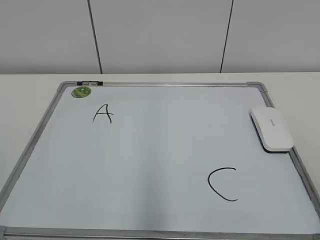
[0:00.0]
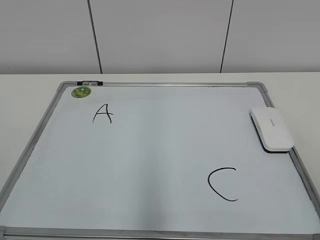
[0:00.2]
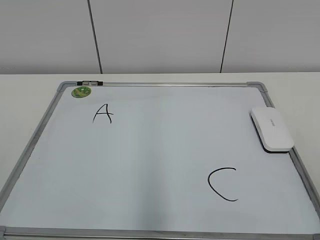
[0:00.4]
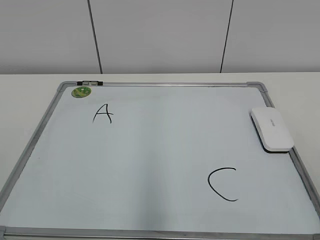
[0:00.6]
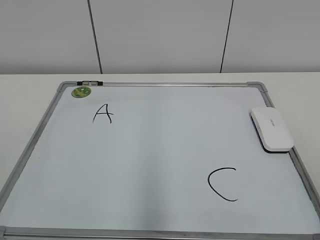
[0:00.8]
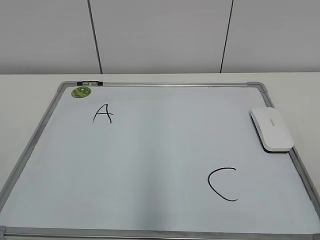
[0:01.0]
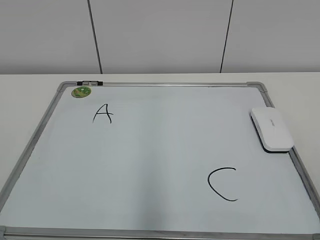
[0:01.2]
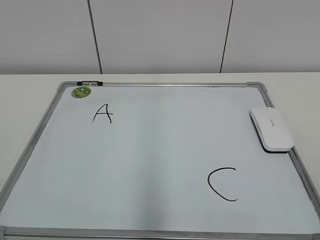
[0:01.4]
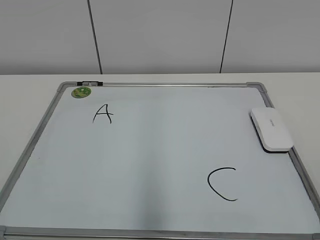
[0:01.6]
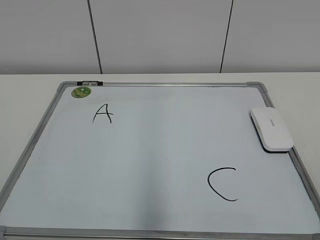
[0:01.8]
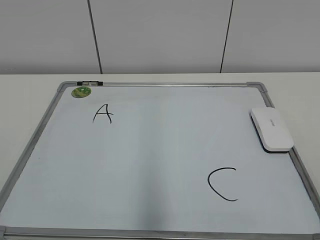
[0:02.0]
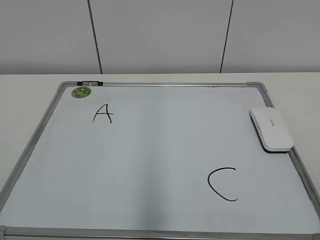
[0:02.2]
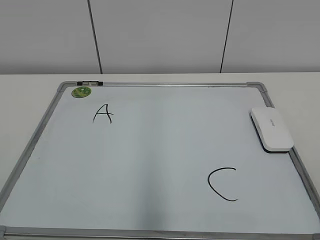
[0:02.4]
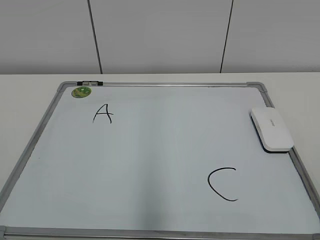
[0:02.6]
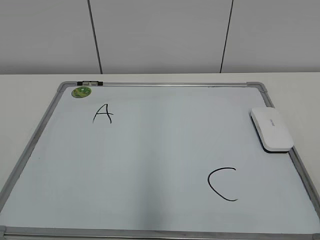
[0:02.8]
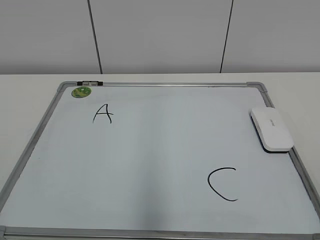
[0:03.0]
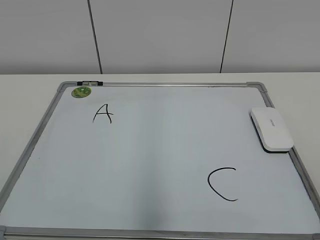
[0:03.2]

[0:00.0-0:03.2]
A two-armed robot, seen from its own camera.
Task of the whole recording: pick up the eraser on the blackboard and erase the letter "B".
0:01.6 to 0:03.2: Both grippers stay about where they are.

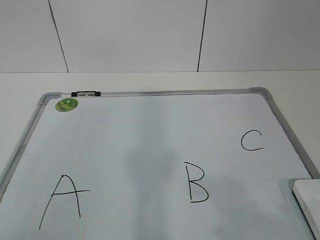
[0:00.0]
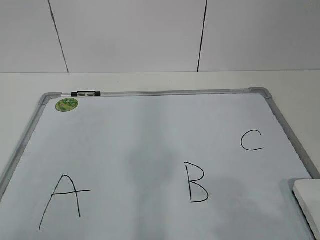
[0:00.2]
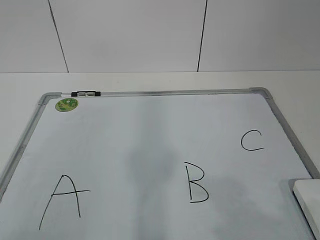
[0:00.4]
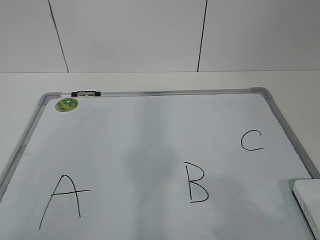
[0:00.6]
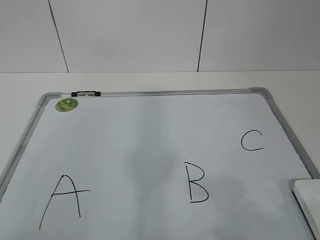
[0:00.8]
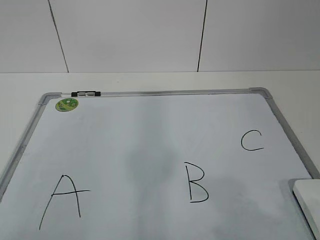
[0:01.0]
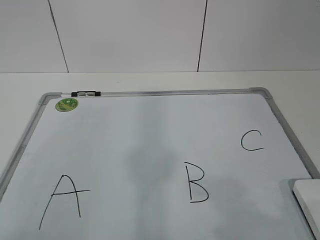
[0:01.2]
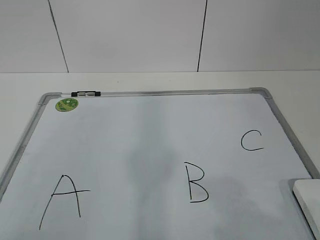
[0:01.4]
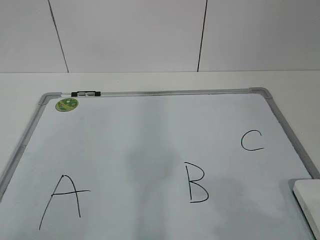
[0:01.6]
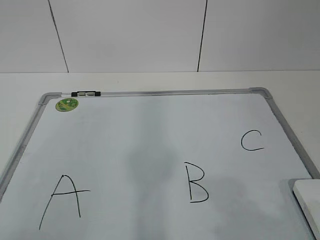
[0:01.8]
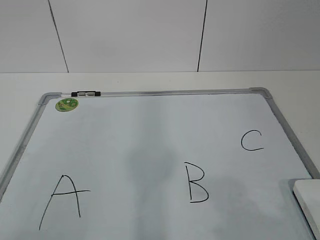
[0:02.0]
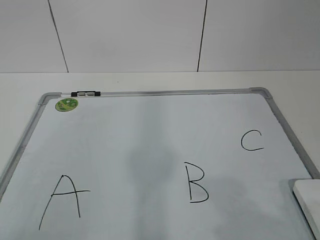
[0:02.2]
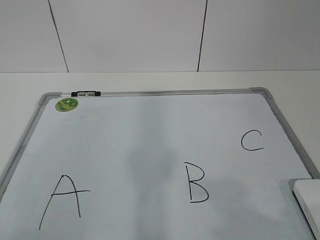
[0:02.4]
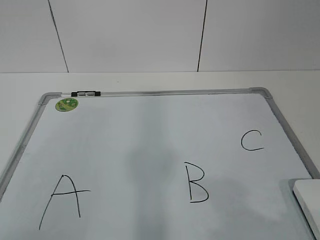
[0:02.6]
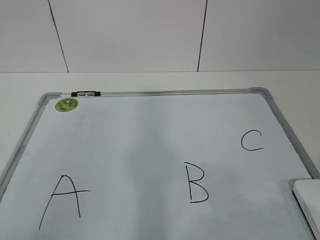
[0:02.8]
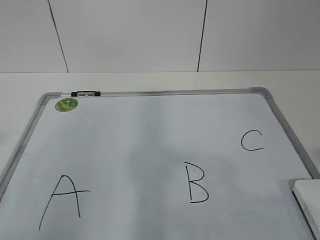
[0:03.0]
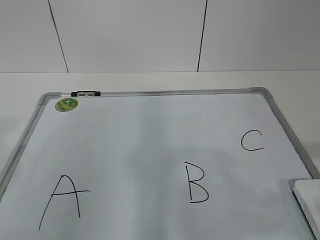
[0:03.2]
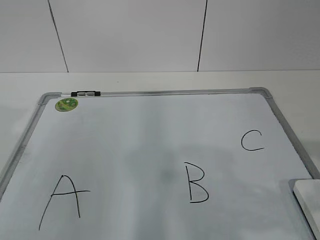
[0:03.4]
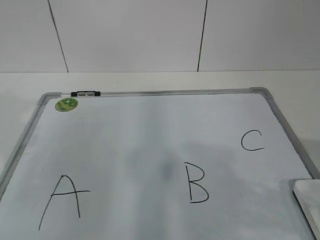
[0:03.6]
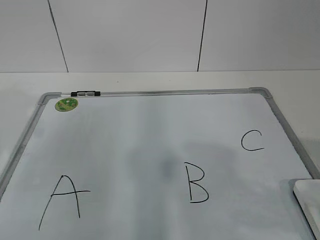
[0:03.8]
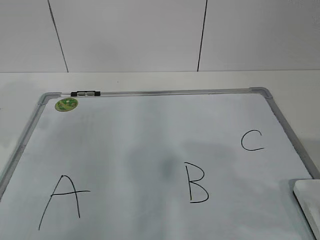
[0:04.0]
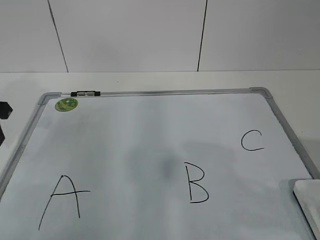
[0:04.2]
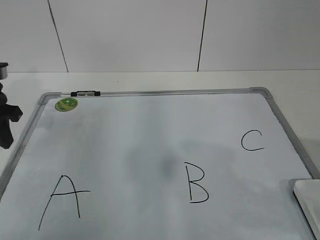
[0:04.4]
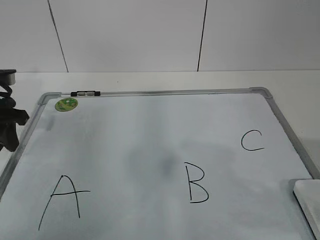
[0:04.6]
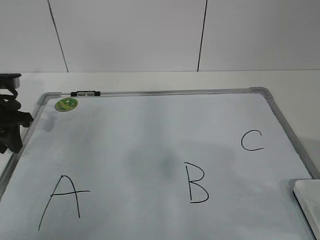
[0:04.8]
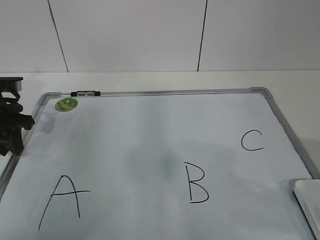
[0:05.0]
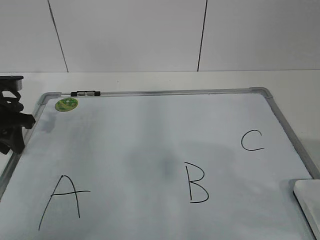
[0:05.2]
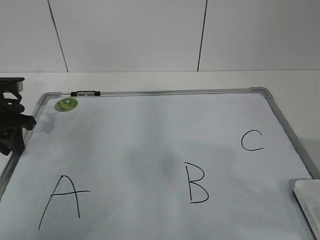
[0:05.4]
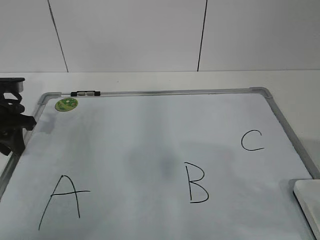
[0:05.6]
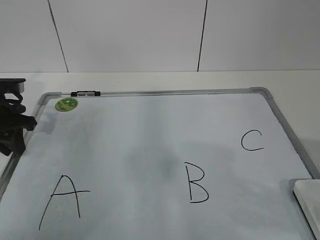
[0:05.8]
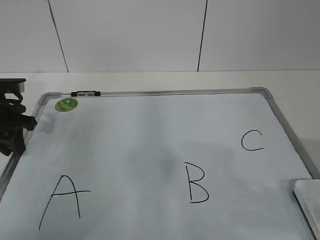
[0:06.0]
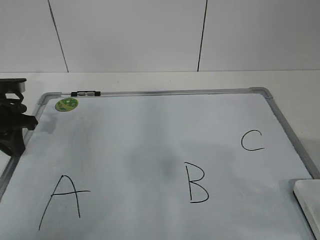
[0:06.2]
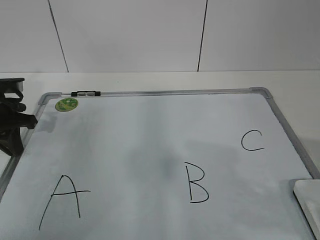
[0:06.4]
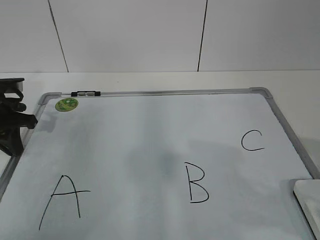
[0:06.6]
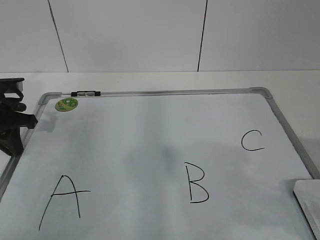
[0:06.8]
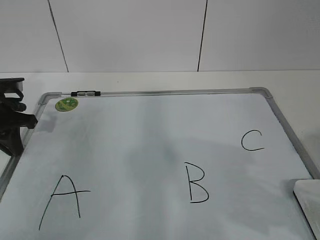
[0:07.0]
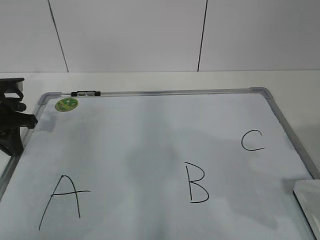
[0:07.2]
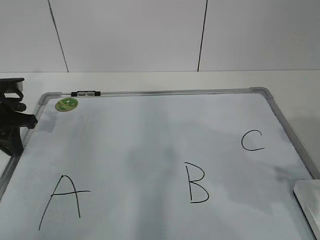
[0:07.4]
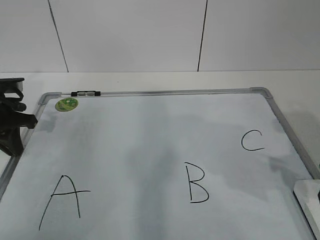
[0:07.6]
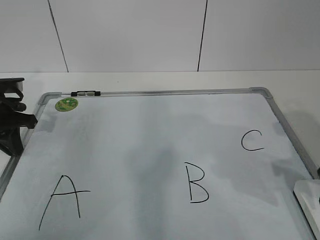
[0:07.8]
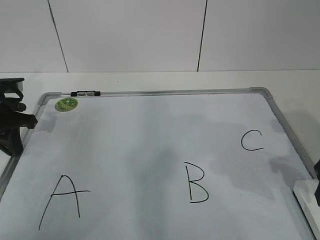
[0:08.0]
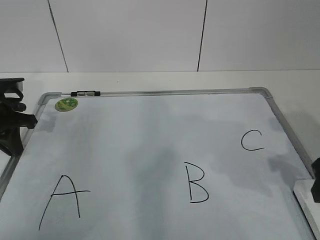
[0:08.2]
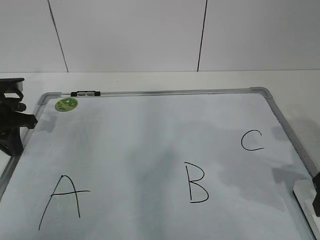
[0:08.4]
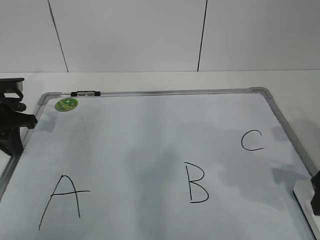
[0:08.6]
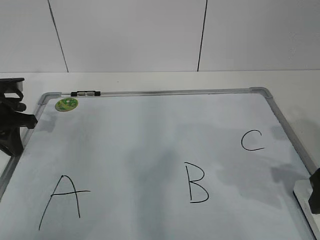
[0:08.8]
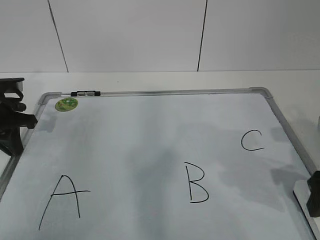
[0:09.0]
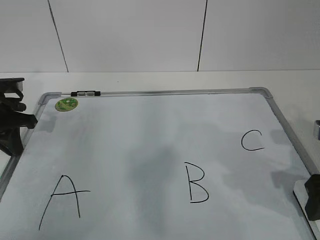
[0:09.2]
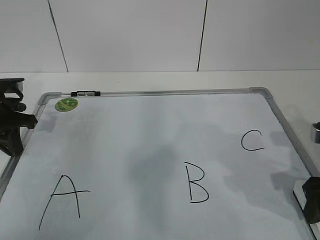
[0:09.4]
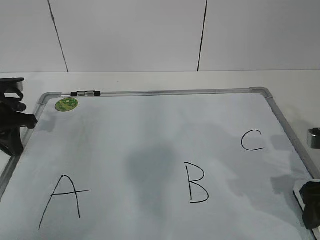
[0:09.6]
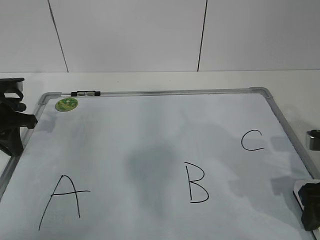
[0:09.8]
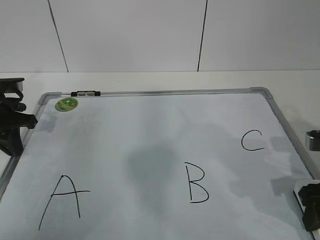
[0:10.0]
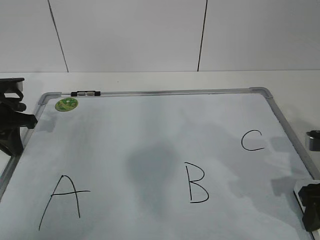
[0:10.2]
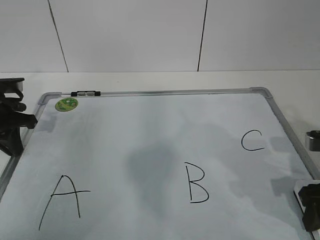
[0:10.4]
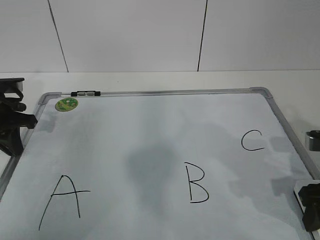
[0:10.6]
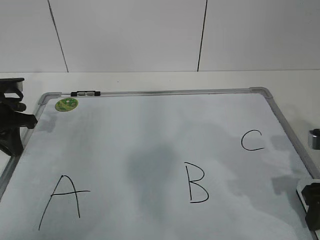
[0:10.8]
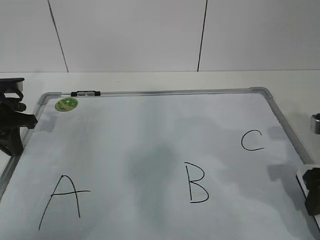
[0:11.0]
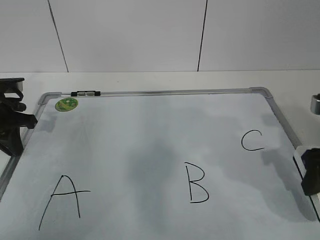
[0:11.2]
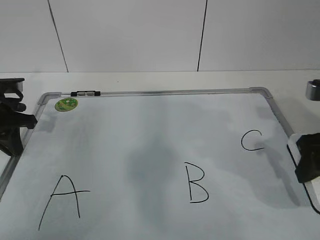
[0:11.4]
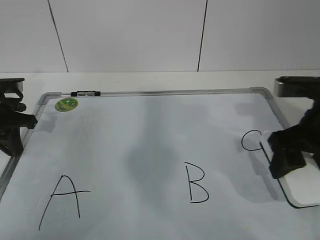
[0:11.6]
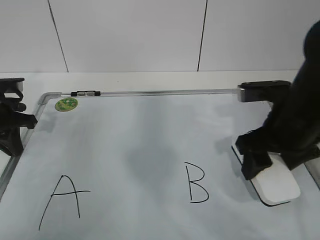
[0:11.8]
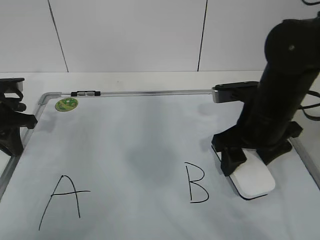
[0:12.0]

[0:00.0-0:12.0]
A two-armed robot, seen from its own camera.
Task of the whole recording: pick up the eraser on the blackboard and erase the letter "B".
Step, 0:00.0 to 0:05.2: Hold the drawing board steady with your left hand.
0:03.0 to 0:04.4: The left gripper shifts about 25 cm forward.
0:04.4 to 0:06.0: The left gripper moves about 5 cm.
0:06.0 to 0:07.6: The right gripper shifts approximately 10 cm forward.
0:07.6 to 0:09.0: The grippers make only small movements.
0:09.0 to 0:10.4: There are only small adjustments of the grippers.
0:10.4 to 0:12.0: The right gripper is displaced to the left and forward by approximately 15 cm.

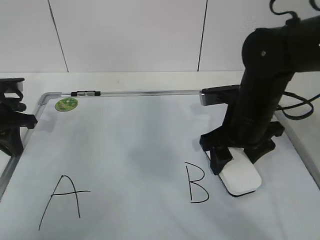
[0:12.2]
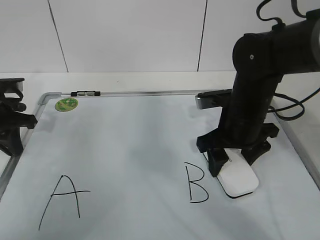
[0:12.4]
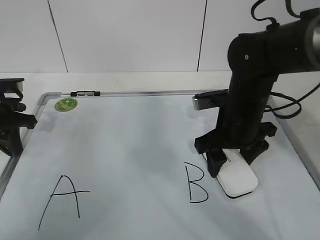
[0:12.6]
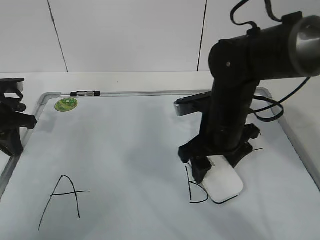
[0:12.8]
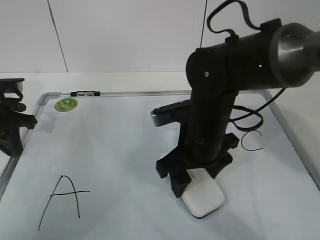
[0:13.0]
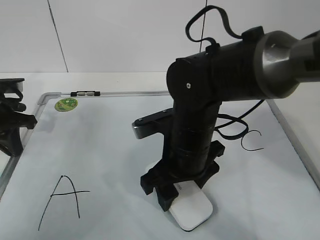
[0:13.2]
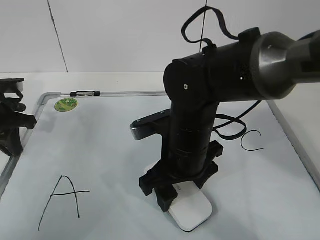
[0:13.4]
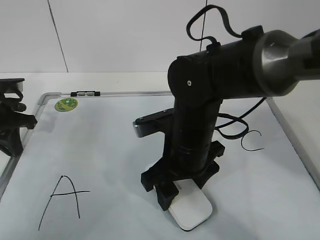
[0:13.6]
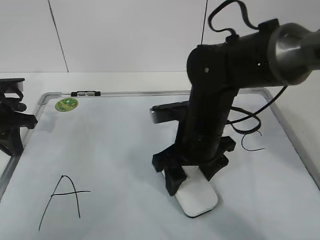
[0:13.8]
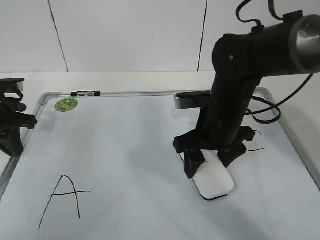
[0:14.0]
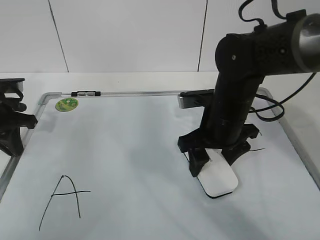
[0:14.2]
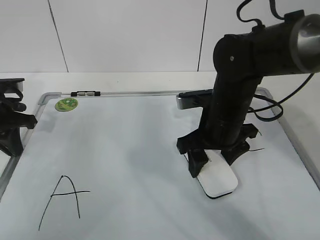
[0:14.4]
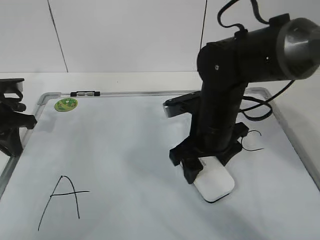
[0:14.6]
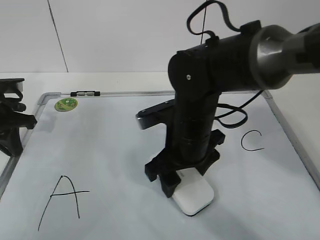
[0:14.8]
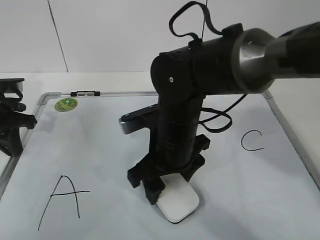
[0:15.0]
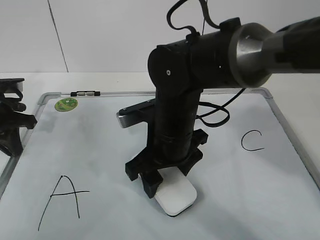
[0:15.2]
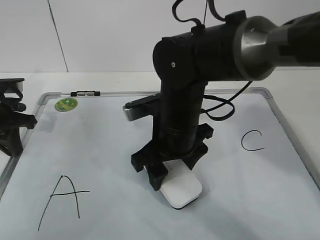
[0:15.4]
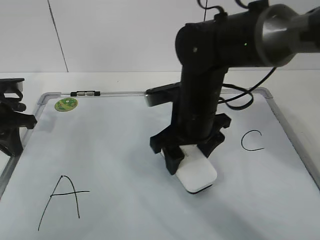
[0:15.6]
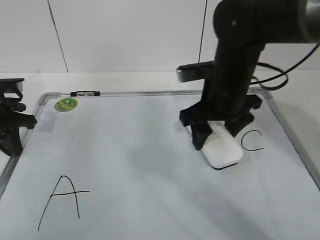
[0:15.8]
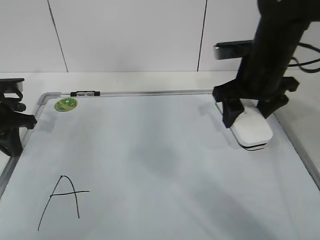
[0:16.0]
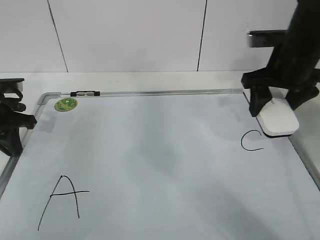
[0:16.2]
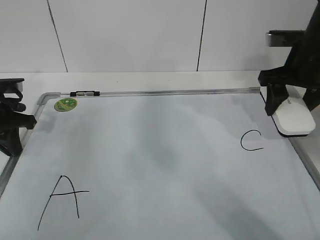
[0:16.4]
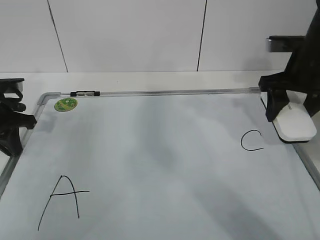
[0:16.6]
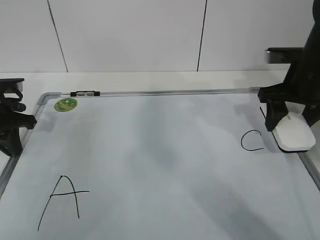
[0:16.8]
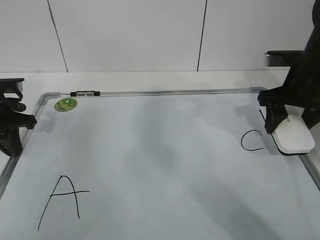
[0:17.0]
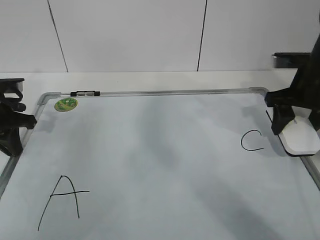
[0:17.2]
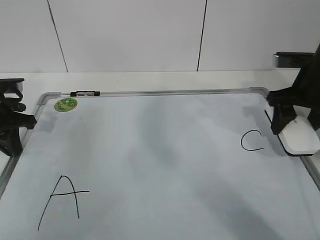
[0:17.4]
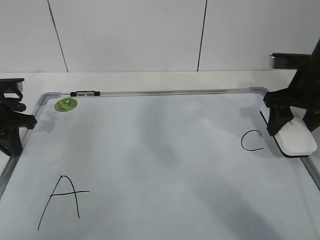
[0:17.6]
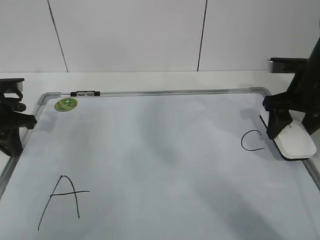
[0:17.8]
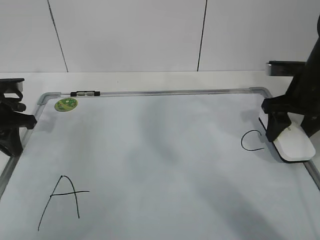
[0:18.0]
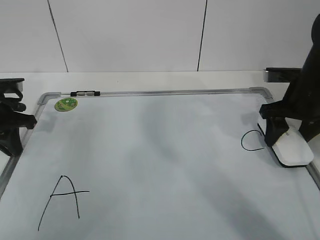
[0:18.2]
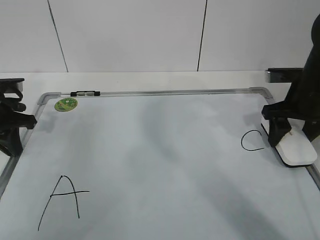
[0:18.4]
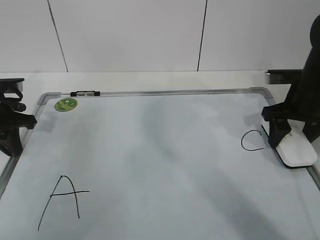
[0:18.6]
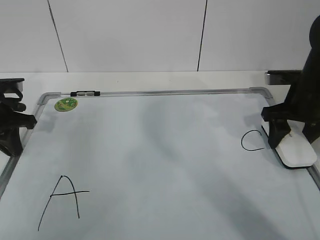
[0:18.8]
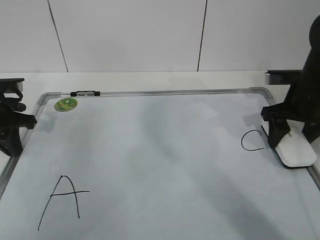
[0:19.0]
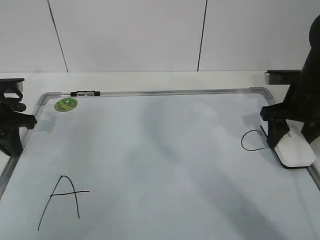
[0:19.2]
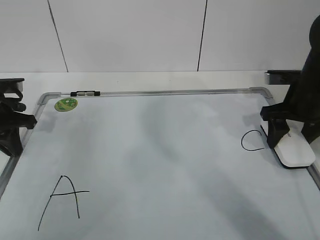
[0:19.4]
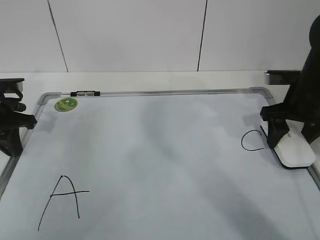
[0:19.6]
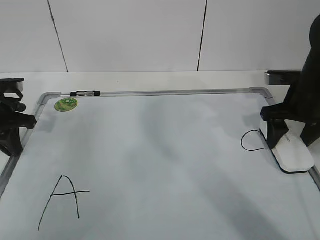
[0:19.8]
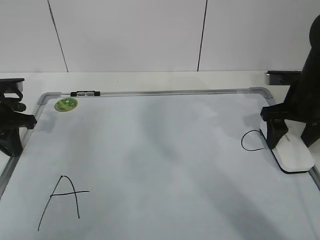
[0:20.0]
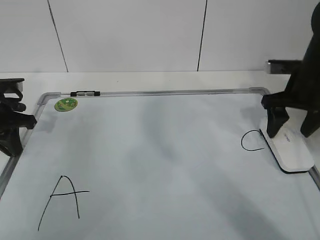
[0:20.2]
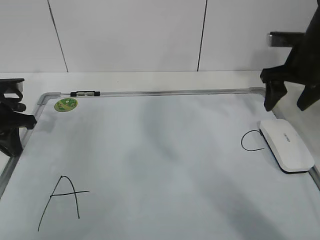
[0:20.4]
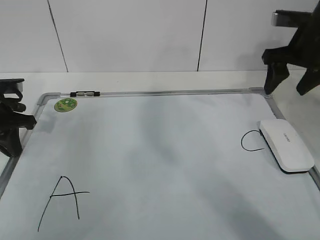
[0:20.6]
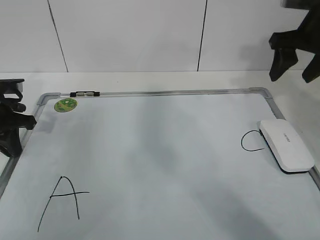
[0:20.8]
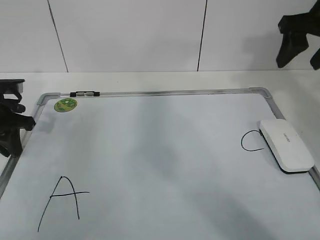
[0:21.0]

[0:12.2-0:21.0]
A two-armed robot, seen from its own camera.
Task of the whole recording: pick up the eraser on the blackboard and erase the letter "B".
Step, 0:12.6 to 0:16.4: Put down the eraser with your right hand.
0:12.2 to 0:13.6: The right gripper moves to the left, some 10 cm.
0:13.6 to 0:15.2: The right gripper reaches roughly 5 cm to the right, then returns.
0:15.2 to 0:16.6: The right gripper travels to the right by approximately 25 cm.
0:16.6 to 0:18.0: There are only small adjustments of the grippers.
0:18.0 to 0:19.6: The grippers stay close to where they were, moving slightly.
0:19.6 to 0:21.0: The right gripper shifts approximately 15 cm upward.
